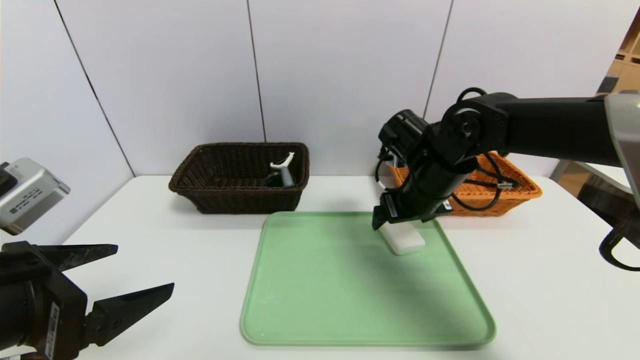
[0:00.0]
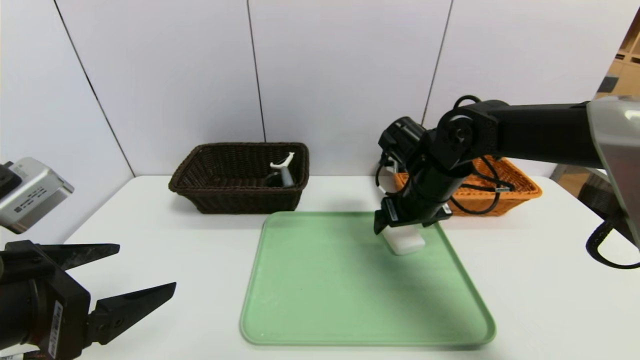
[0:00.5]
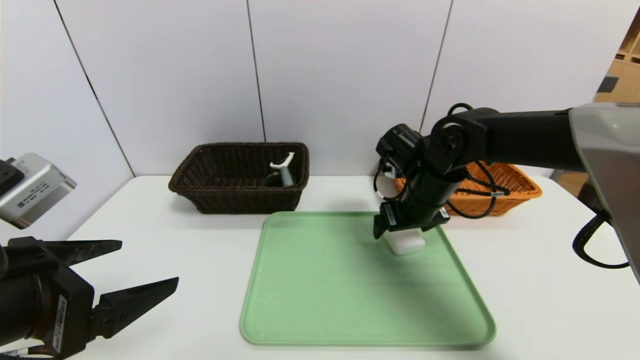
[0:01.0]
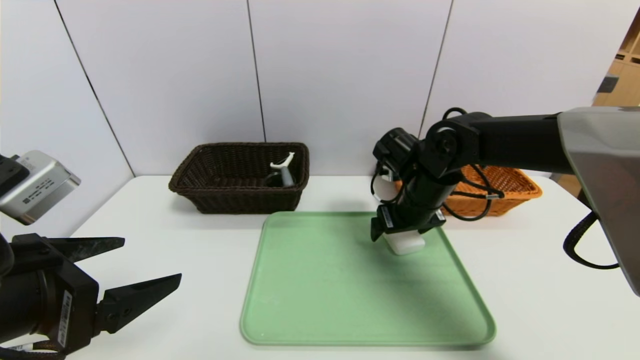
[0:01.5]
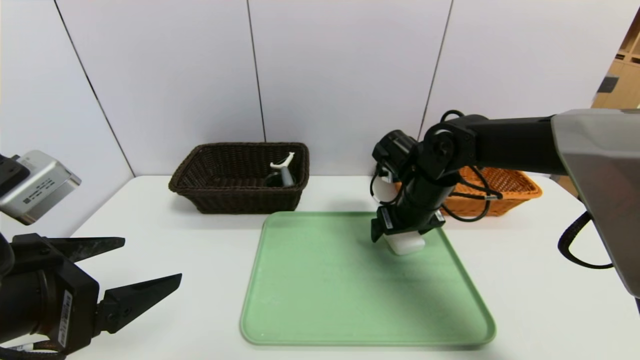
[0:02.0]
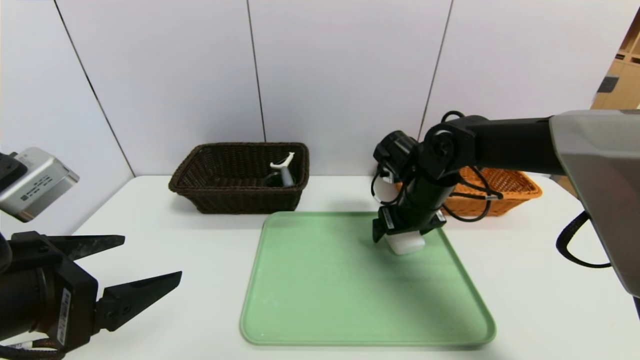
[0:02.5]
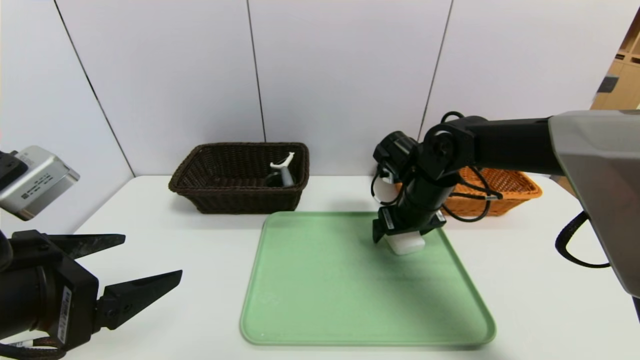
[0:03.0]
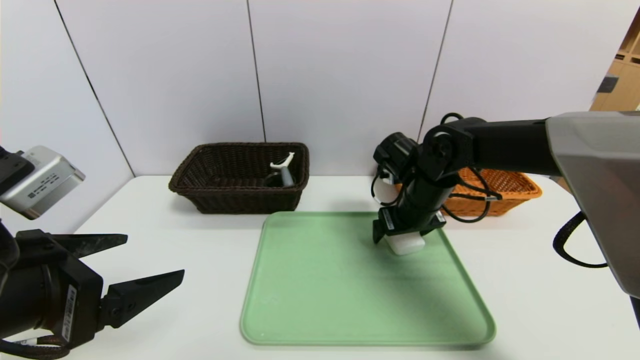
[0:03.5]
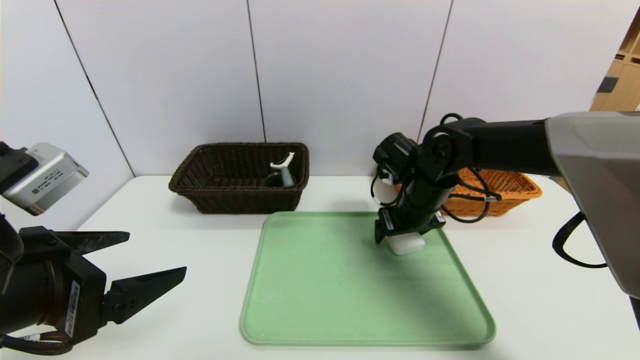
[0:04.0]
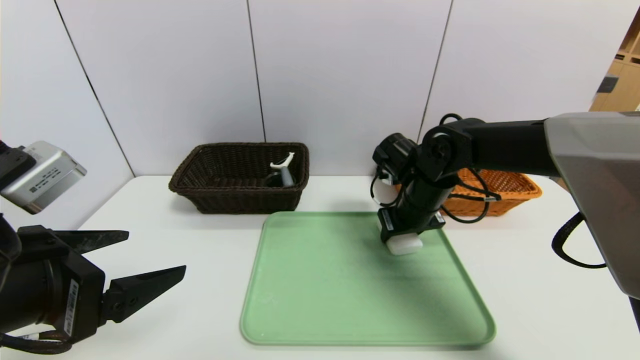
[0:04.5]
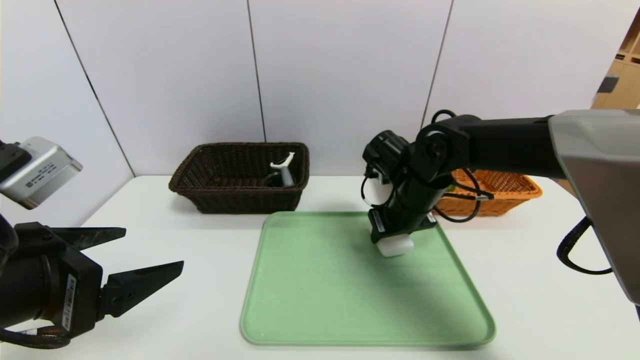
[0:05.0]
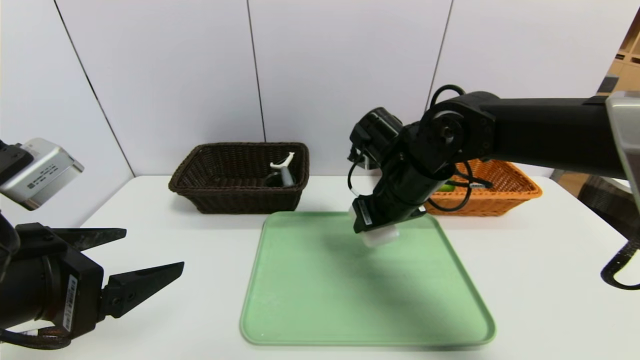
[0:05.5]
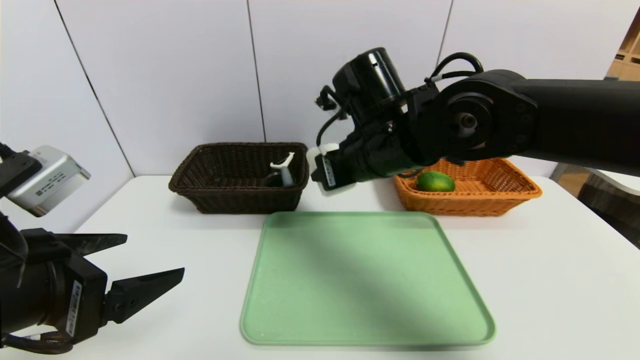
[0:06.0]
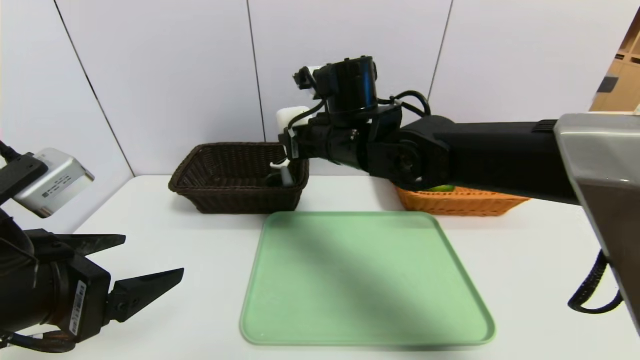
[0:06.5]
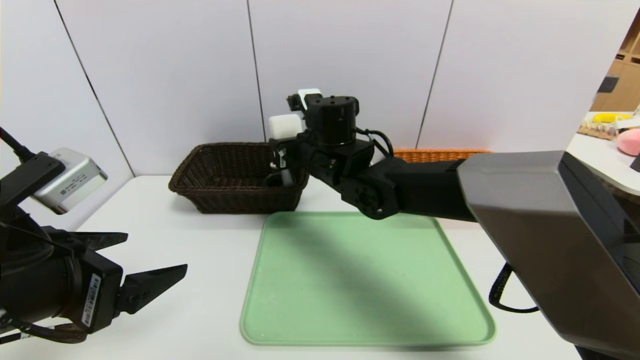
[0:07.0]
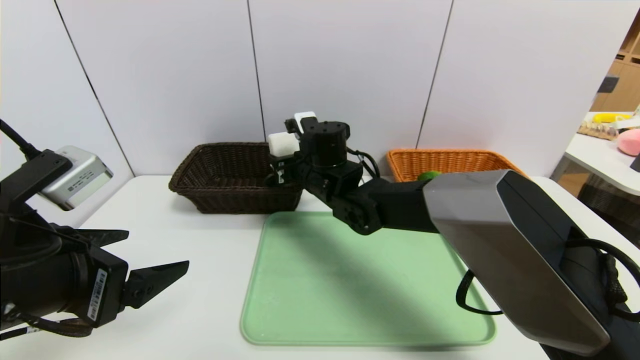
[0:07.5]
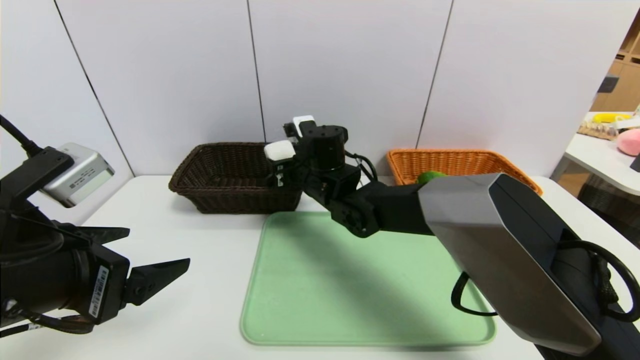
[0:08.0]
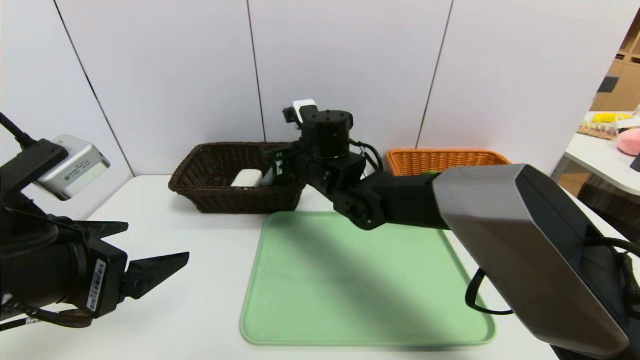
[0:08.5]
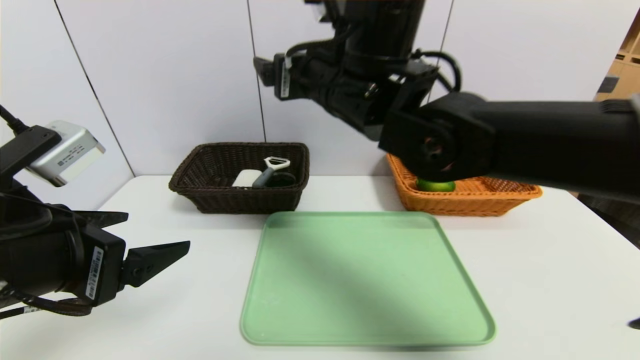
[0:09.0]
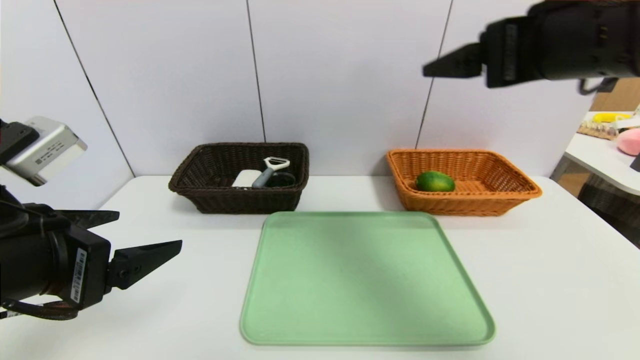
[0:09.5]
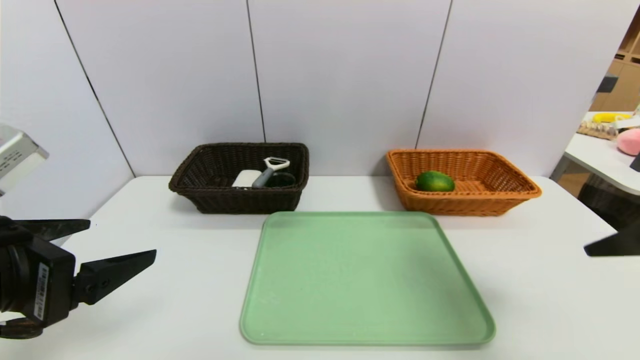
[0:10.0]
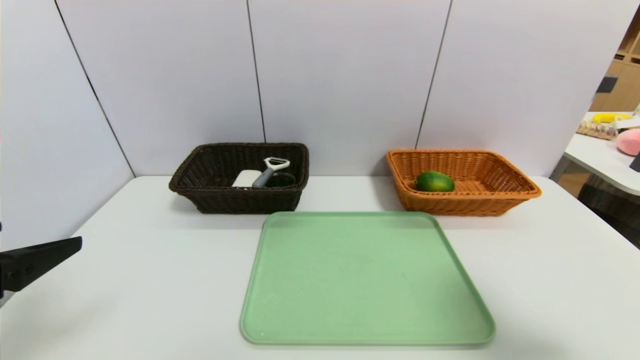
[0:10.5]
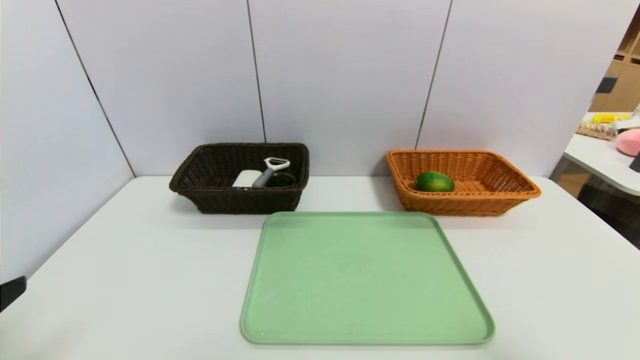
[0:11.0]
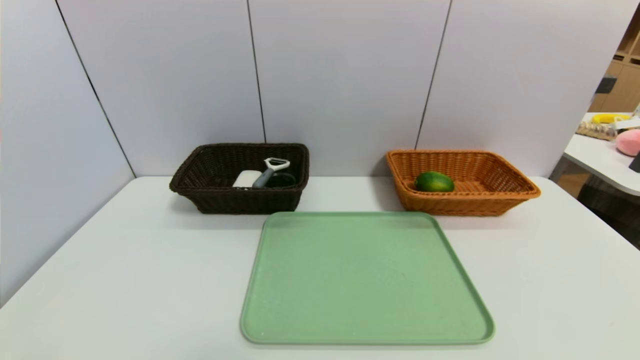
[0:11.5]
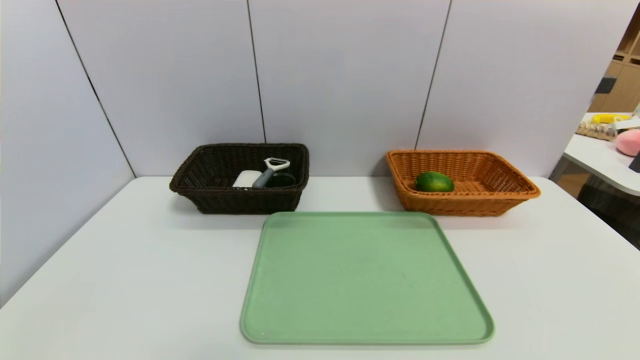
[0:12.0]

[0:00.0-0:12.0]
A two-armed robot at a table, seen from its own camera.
Task of the whole recording: place the food in the right basket with the right gripper, and place the non food items in the left basket with the left gripper.
0:00.0 to 0:02.0: There are only small adjustments of the grippers.
0:02.0 to 0:04.0: Both grippers stay about where they are.
0:04.0 to 0:06.0: The right gripper travels upward, to the left and backward by some 15 cm.
0:06.0 to 0:08.0: The right gripper is displaced downward, forward and to the left by some 15 cm.
0:08.0 to 0:10.0: The right gripper goes roughly 40 cm to the right, backward and upward.
0:10.0 to 0:12.0: The two grippers go some 25 cm backward and downward.

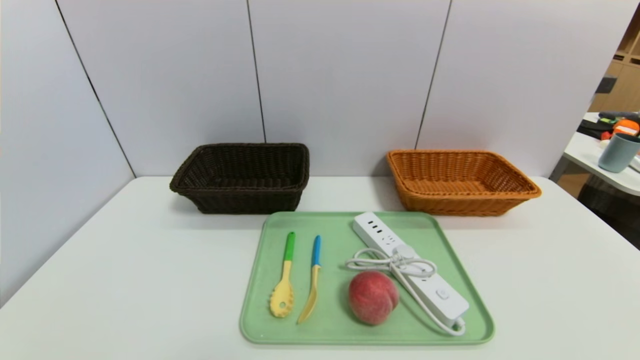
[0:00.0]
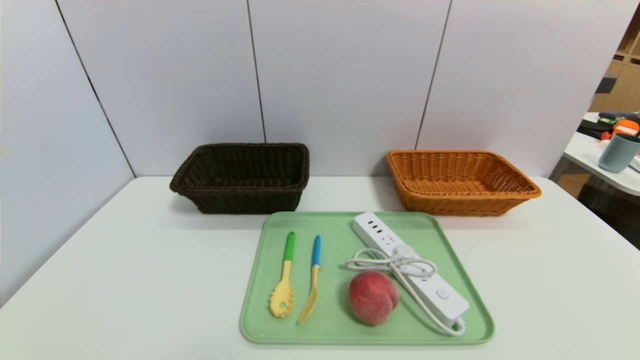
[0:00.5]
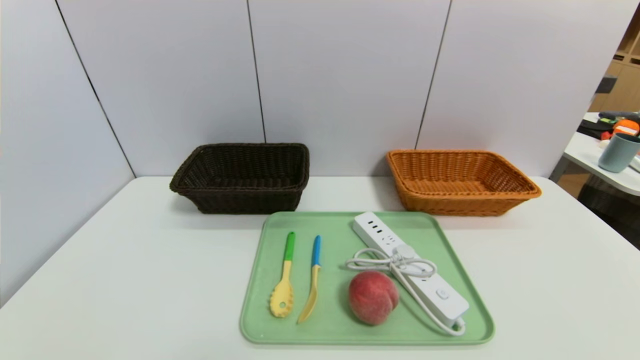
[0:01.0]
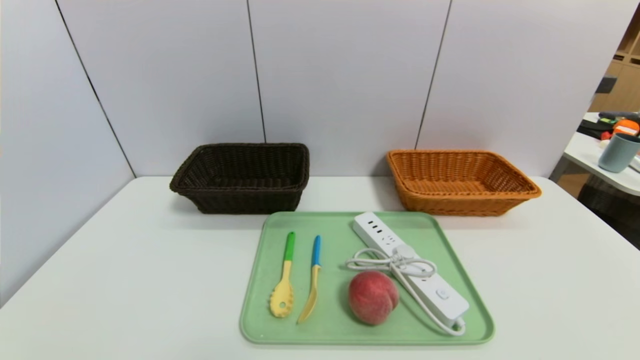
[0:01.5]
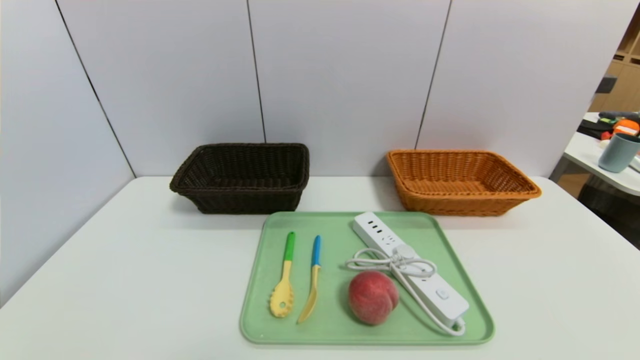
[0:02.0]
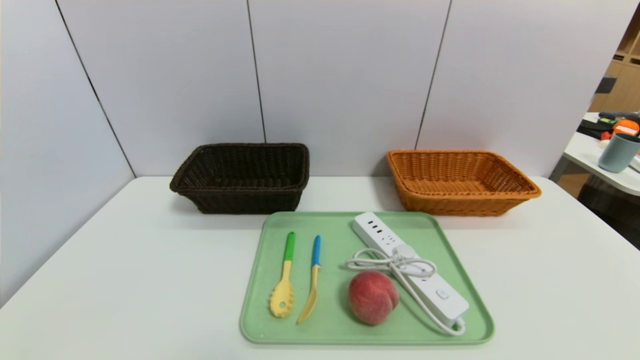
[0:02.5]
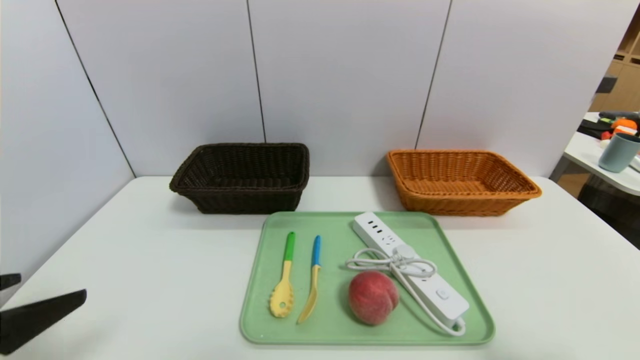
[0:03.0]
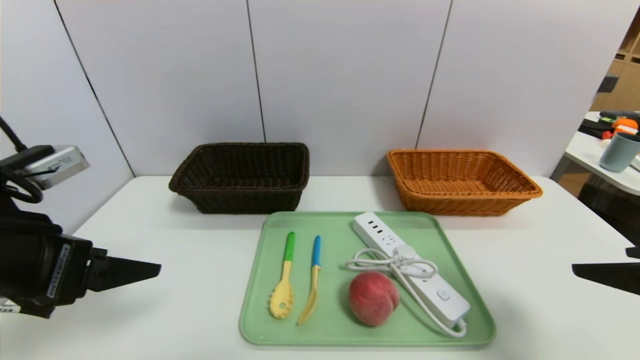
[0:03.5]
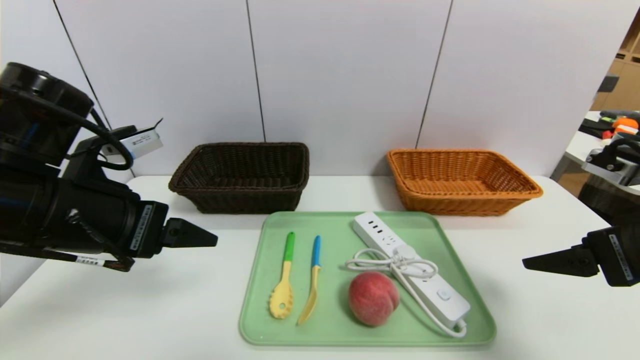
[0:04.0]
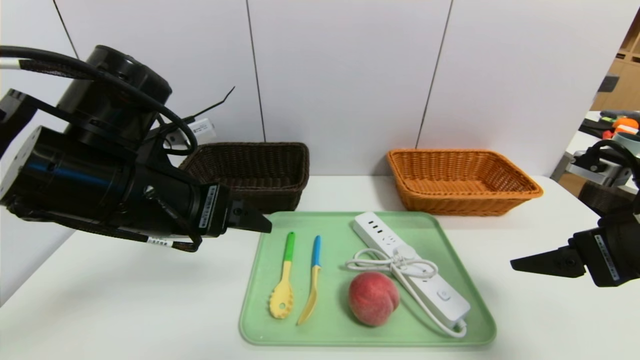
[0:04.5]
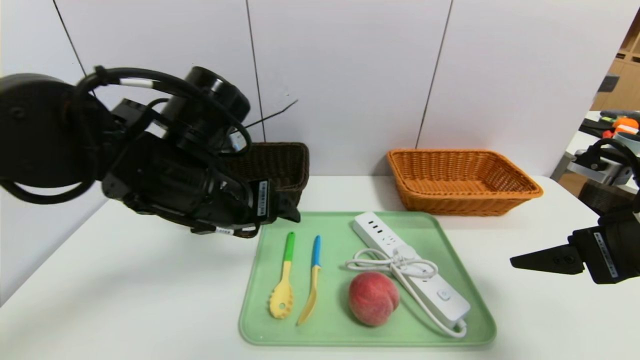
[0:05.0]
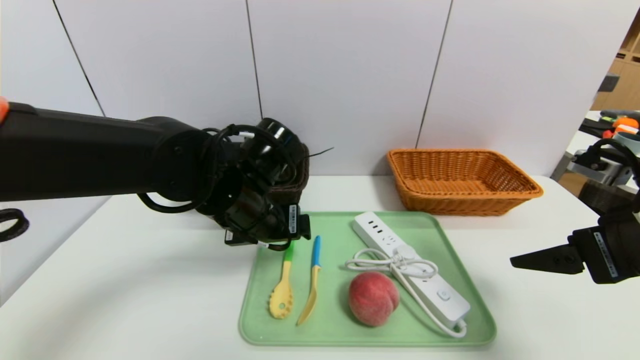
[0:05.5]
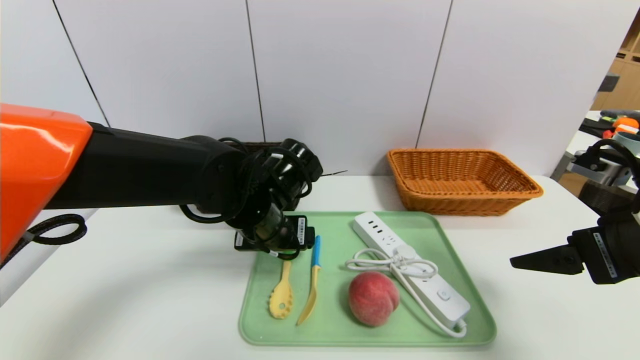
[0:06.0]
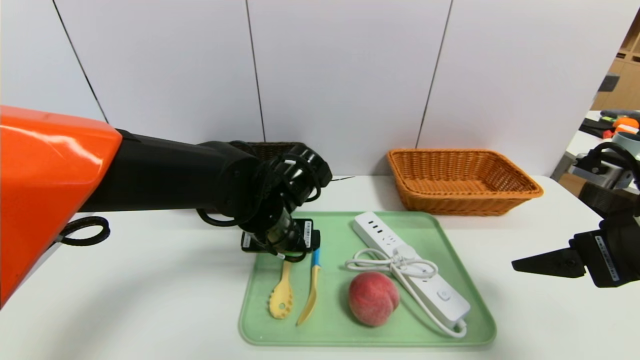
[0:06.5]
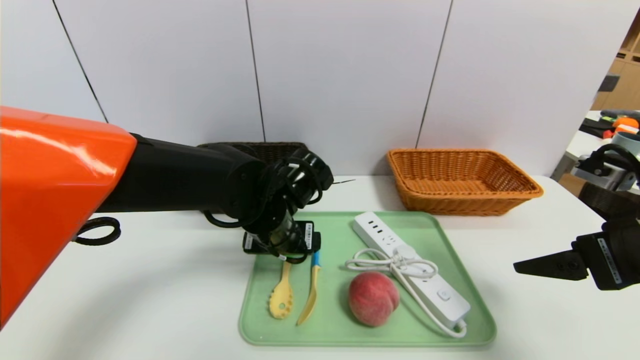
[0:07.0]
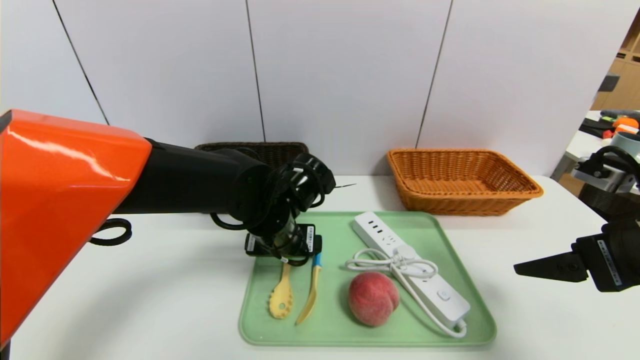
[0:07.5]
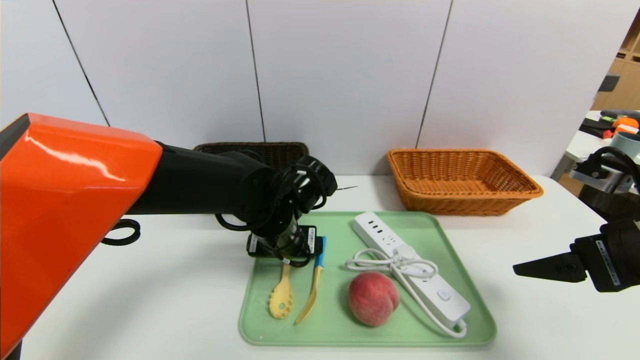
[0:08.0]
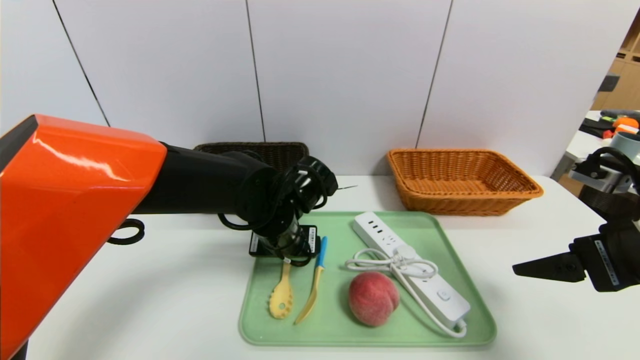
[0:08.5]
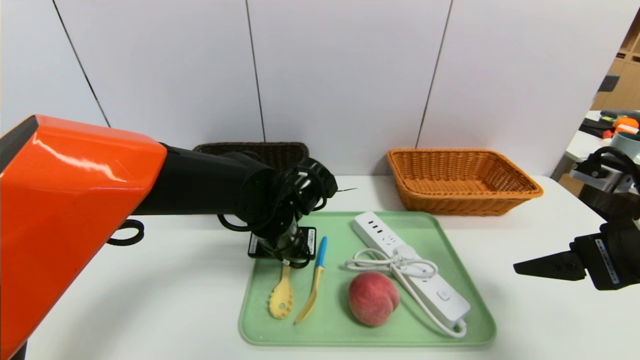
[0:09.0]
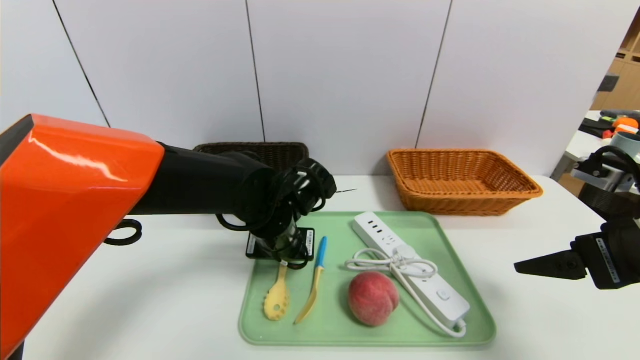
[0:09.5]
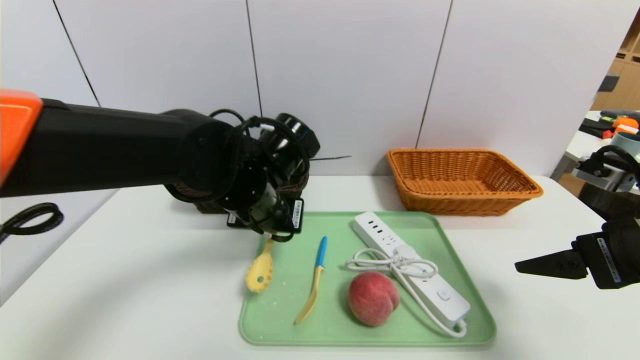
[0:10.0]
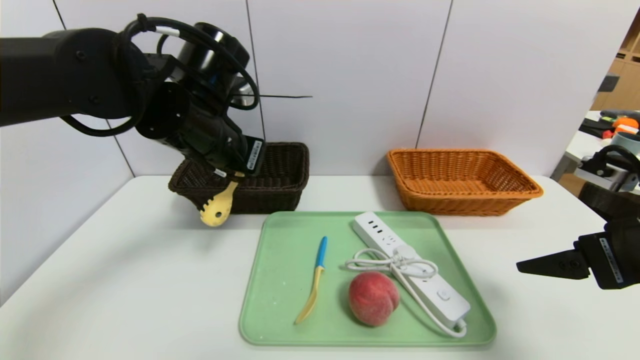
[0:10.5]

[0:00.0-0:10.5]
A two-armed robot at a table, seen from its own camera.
Task of the whole recording: place the food in the right basket with the right gripper, and place the non food items in the left basket with the left gripper.
0:02.0 to 0:04.0: Both grippers move forward and upward, about 25 cm.
0:04.0 to 0:06.5: The left gripper moves to the right, forward and downward, some 20 cm.
0:06.5 to 0:08.5: The grippers stay close to where they were, moving slightly.
0:08.5 to 0:10.5: The left gripper heads upward and to the left, covering approximately 15 cm, and closes its fingers.
